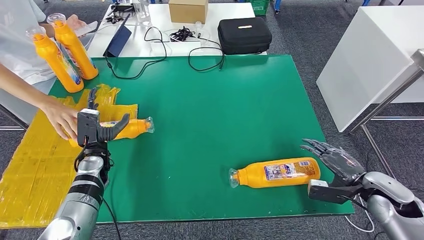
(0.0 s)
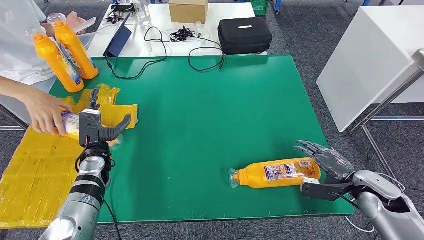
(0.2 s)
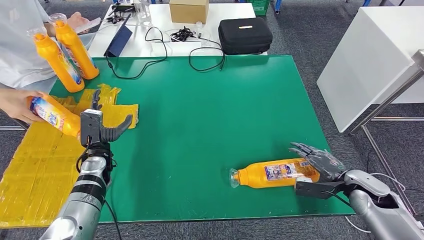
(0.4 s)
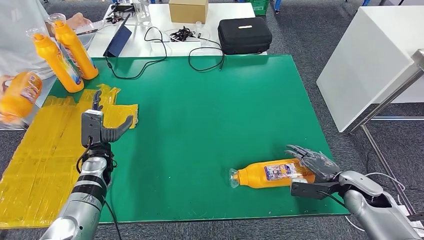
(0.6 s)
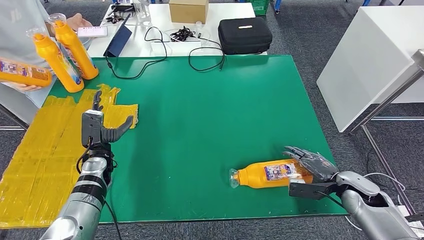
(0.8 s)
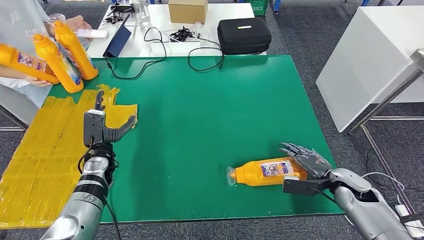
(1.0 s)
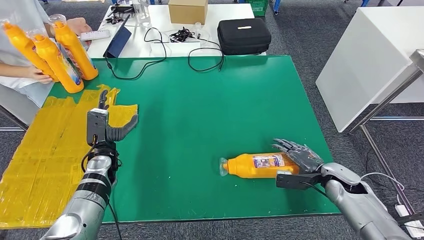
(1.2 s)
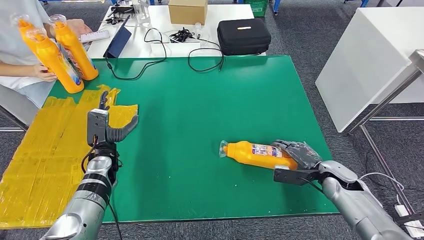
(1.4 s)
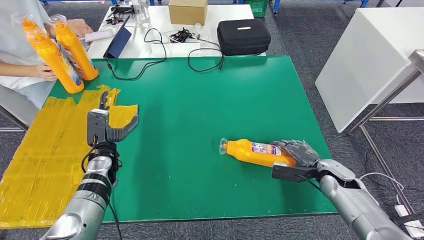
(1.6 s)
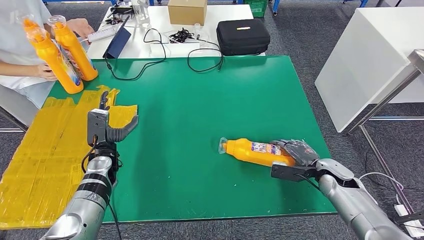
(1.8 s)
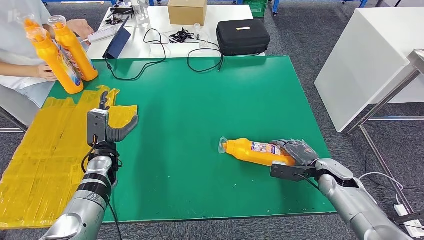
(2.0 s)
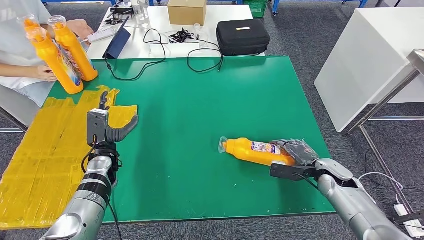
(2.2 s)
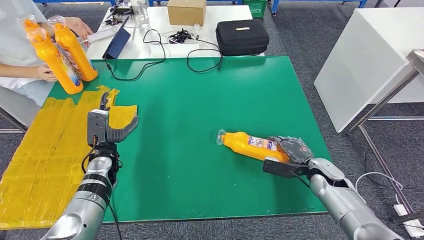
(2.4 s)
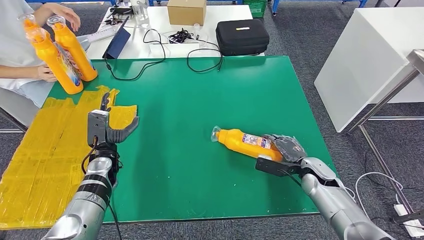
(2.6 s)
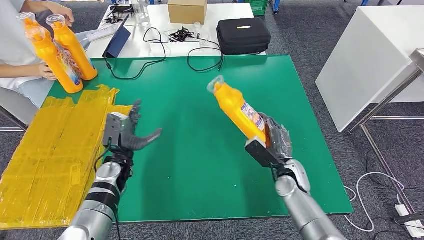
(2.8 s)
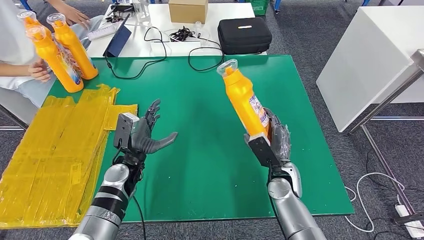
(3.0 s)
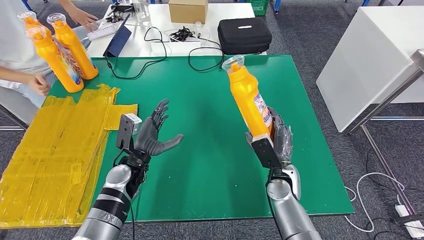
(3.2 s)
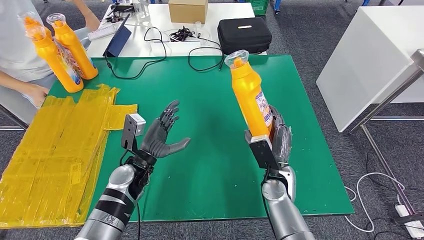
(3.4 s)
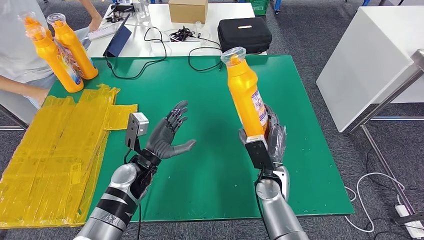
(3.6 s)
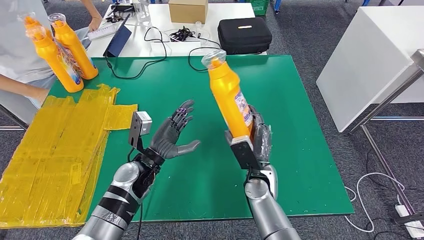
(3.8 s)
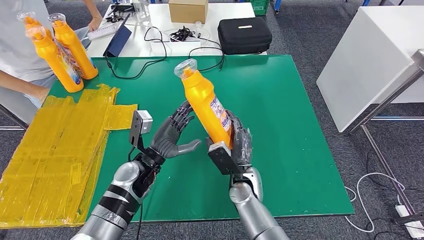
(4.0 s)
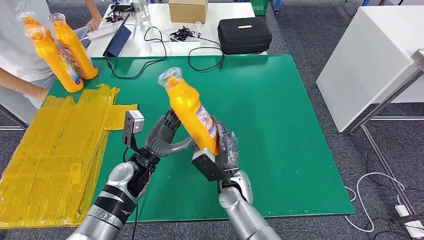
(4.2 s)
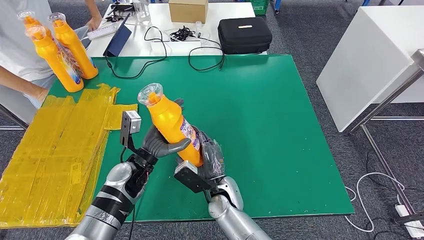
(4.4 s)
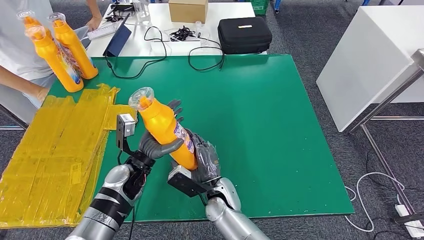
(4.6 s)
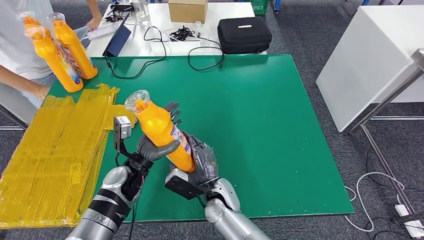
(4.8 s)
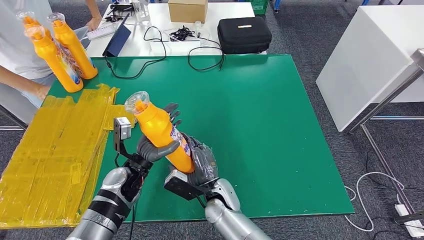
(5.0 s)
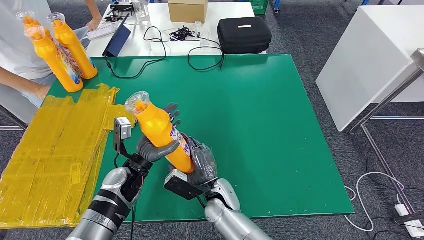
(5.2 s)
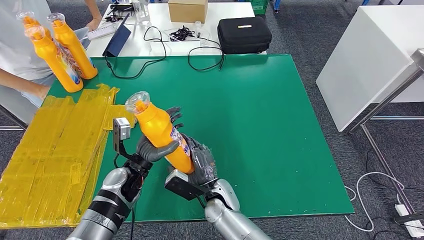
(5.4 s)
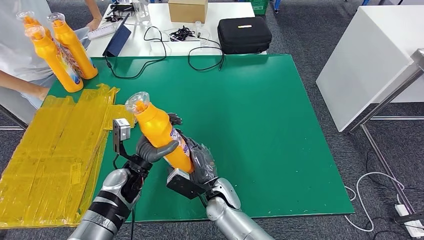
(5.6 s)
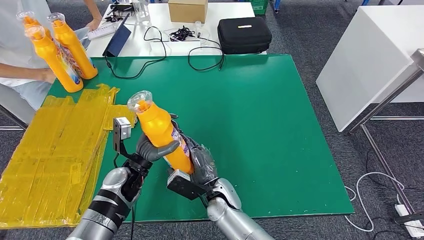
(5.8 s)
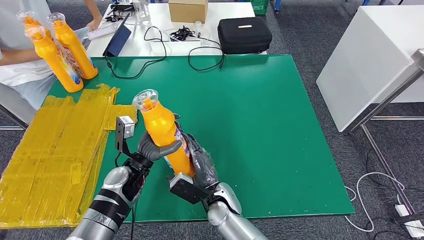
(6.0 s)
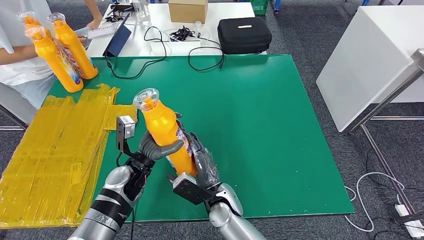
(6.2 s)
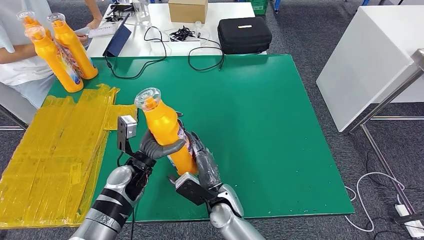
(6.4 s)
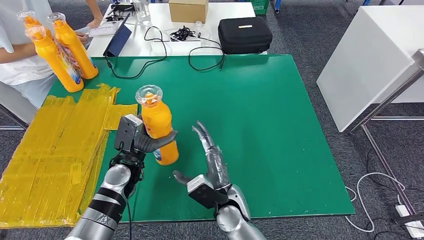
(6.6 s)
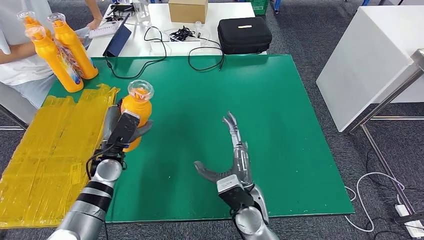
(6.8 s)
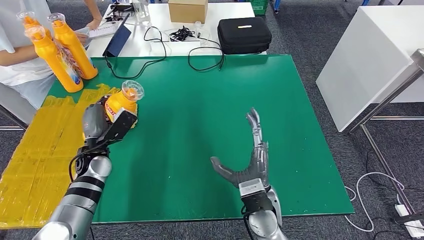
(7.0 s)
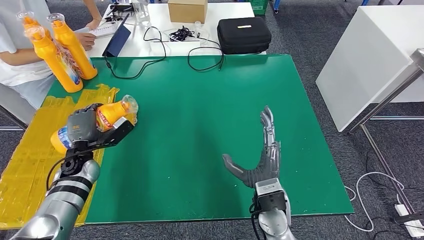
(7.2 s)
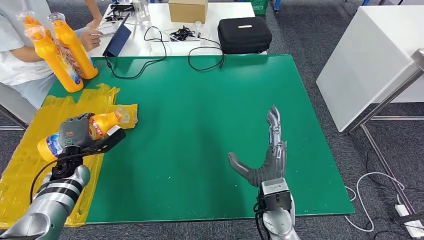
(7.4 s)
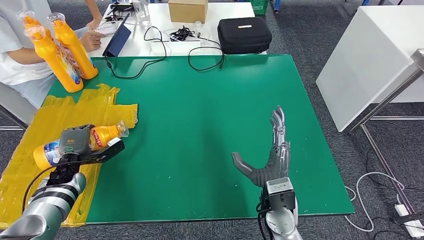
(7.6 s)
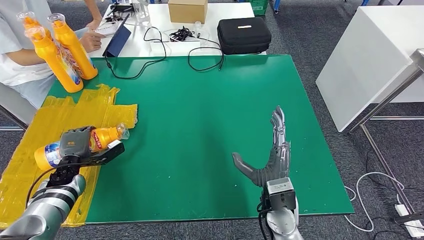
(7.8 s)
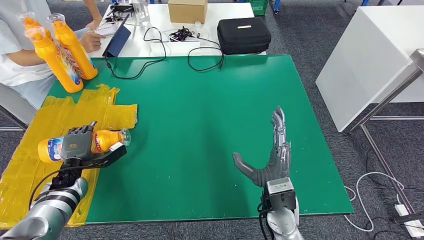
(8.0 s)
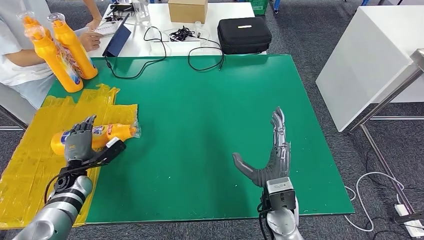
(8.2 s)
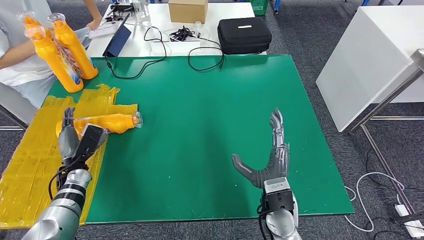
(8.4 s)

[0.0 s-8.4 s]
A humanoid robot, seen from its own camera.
Step, 0.0 to 4.2 s: Pick up the fast-moving consumer goods bottle from the table.
Step, 4.4 to 8.4 s: Flip the fast-moving consumer goods bottle to the front side.
1.4 to 2.8 s: The right hand goes approximately 15 cm to the left.
4.2 to 5.6 s: The right hand ends up approximately 5 cm from where it was.
5.6 to 7.0 s: The left hand moves to the left, some 10 cm, while the right hand is displaced to the right and upward by roughly 10 cm.
7.0 to 8.4 s: The left hand shifts approximately 10 cm to the left and downward.
